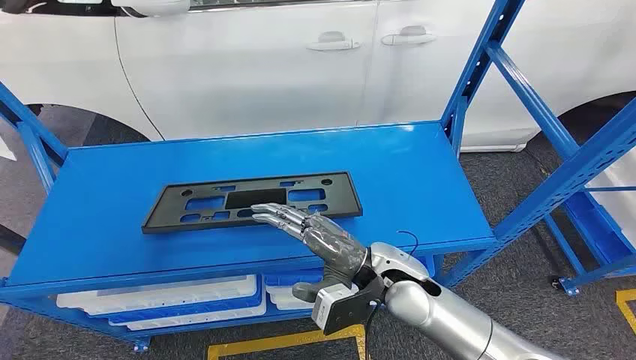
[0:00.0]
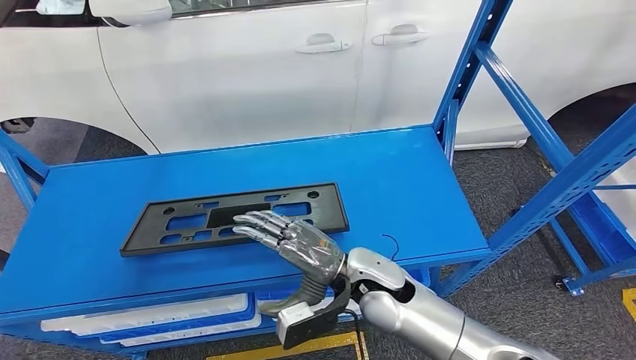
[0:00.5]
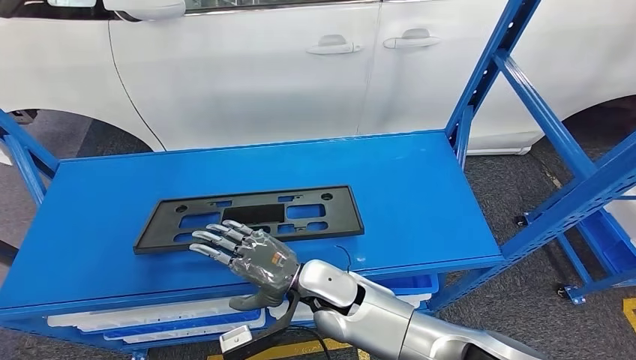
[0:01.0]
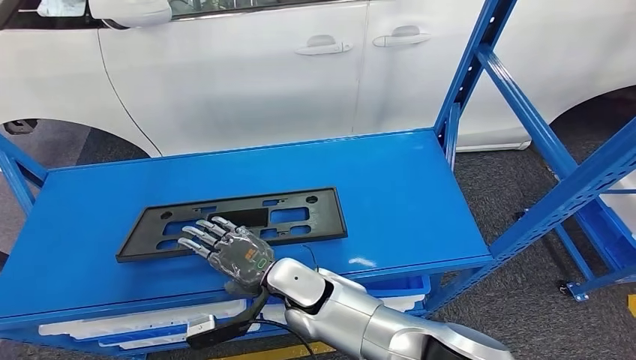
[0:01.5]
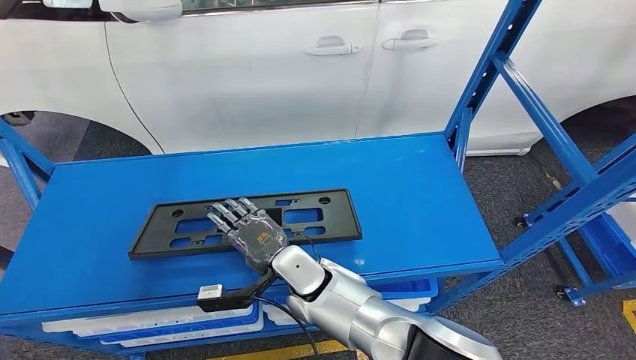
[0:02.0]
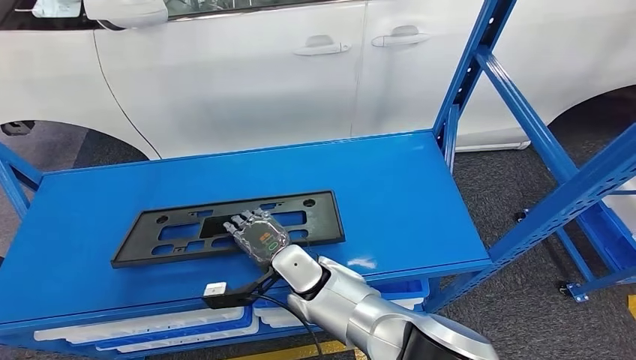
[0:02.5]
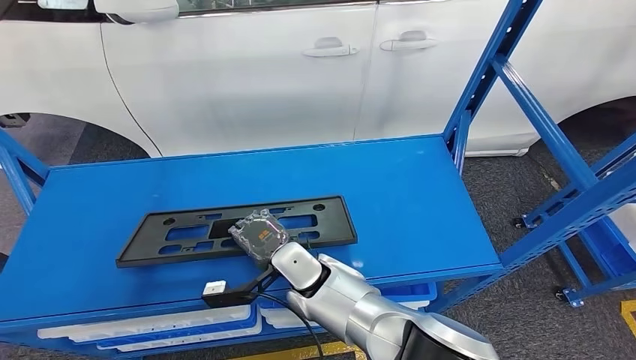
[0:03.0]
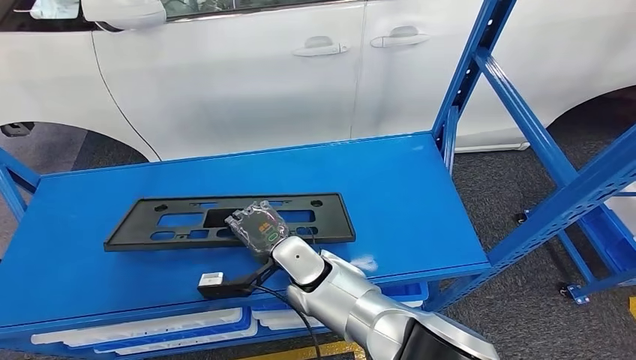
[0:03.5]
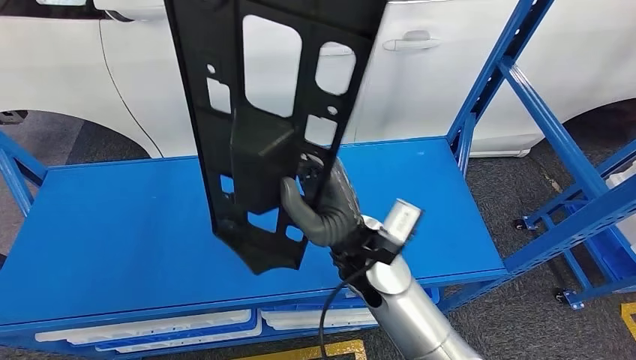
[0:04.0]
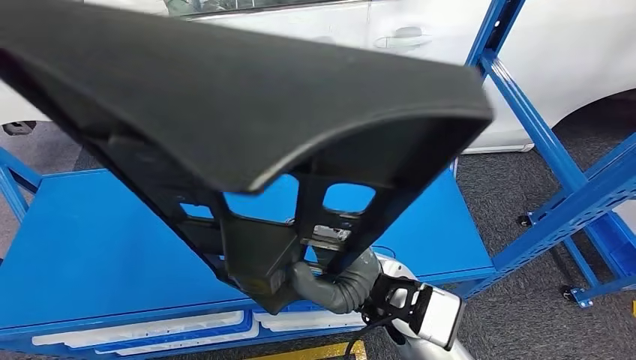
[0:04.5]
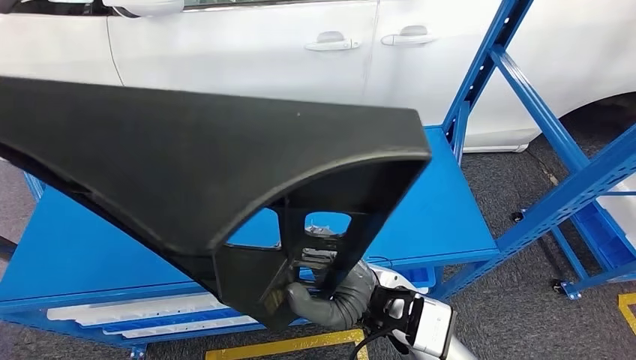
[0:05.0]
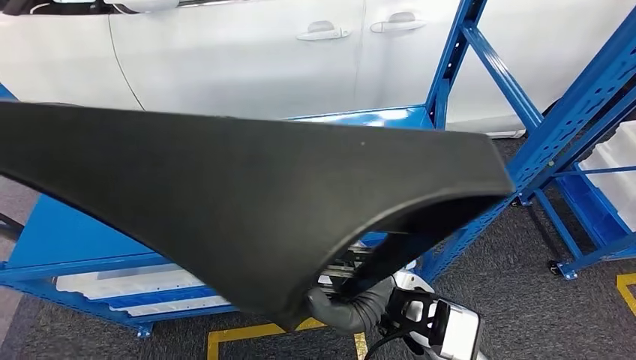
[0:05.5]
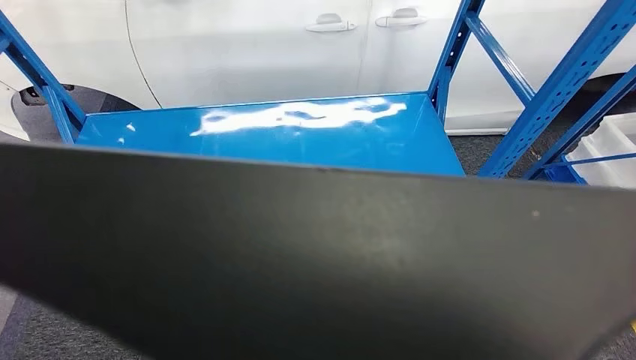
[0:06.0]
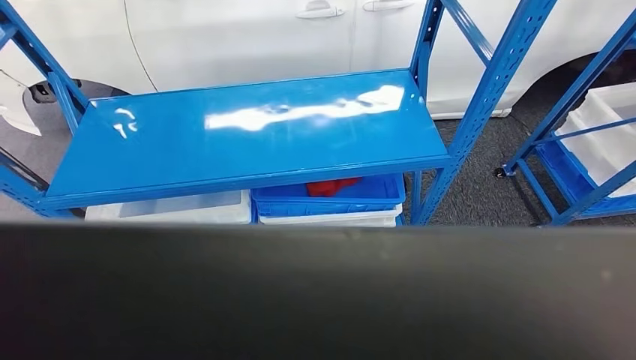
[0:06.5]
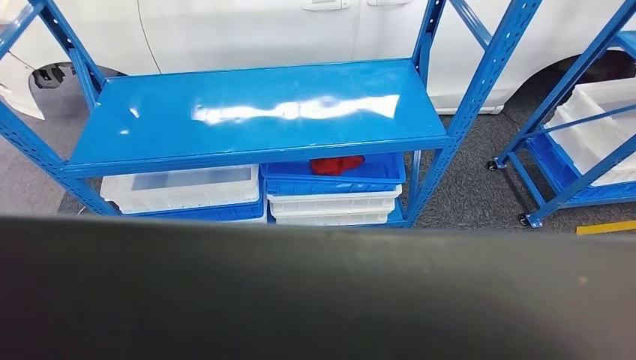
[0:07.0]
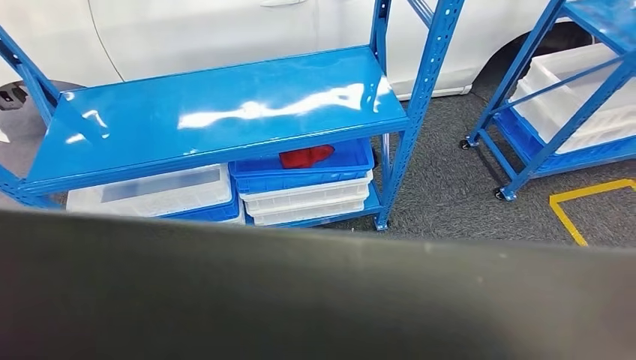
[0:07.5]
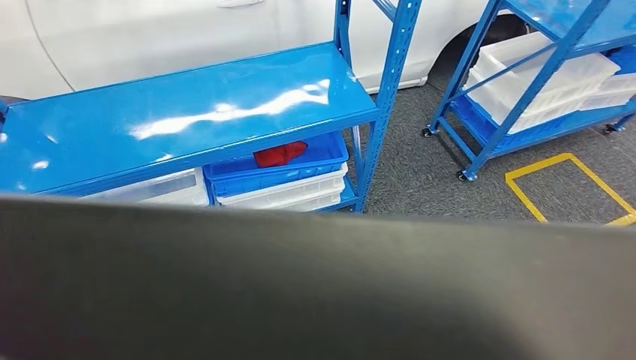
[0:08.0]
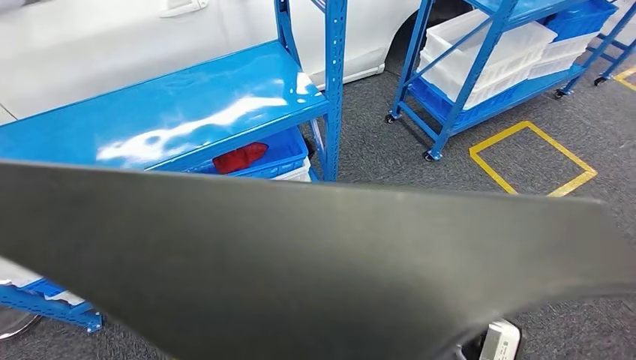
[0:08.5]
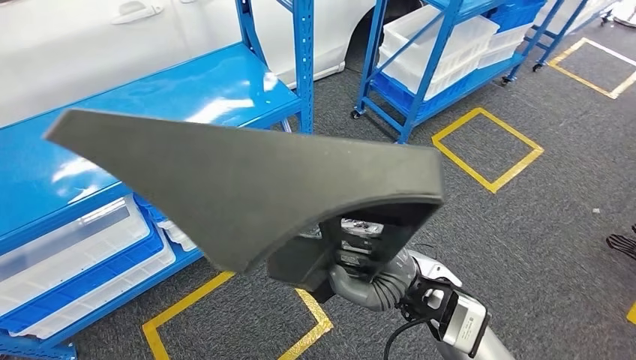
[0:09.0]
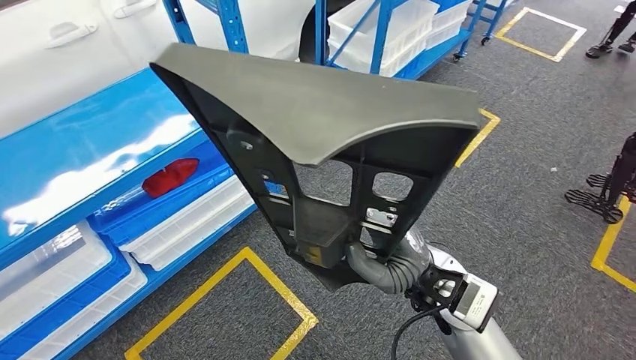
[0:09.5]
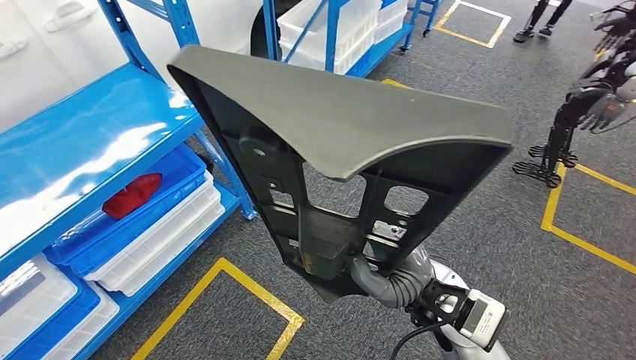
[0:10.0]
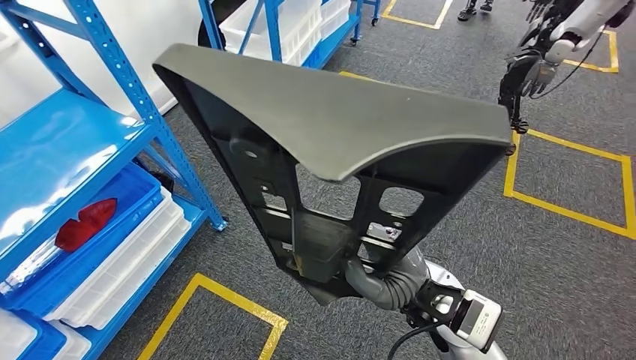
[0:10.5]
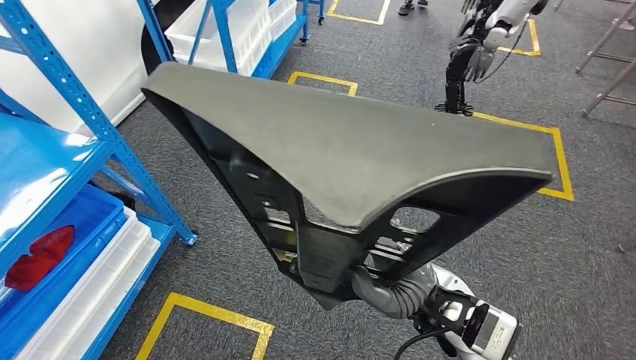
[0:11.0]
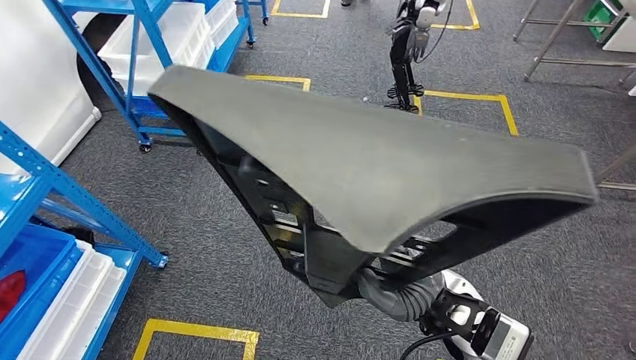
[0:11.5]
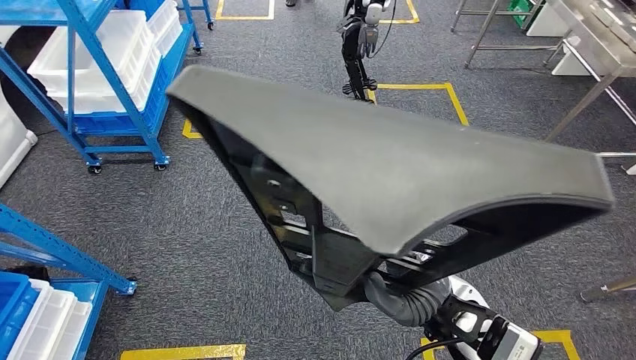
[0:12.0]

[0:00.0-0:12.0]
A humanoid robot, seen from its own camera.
Step, 0:00.0 to 0:04.5: Pick up the small component from the shelf.

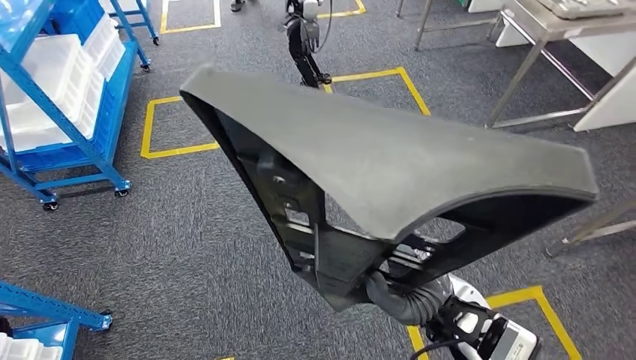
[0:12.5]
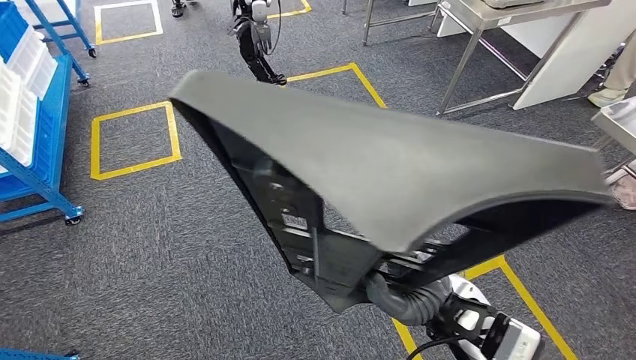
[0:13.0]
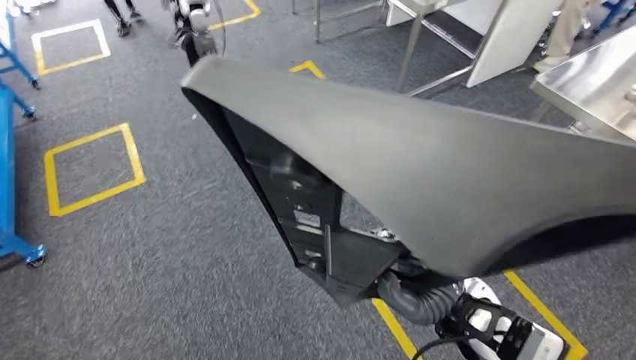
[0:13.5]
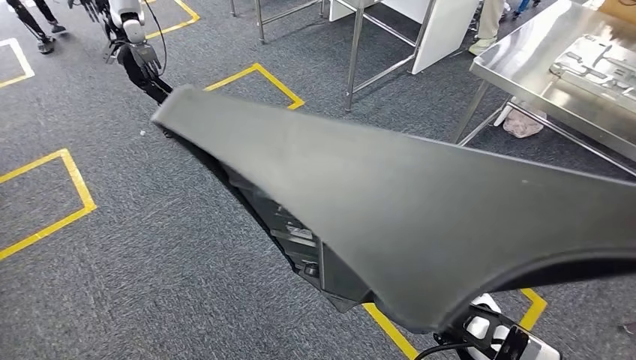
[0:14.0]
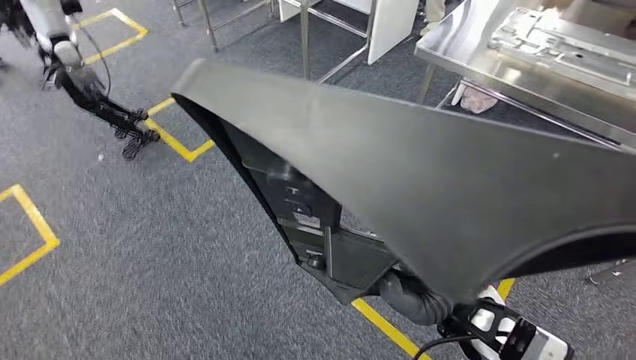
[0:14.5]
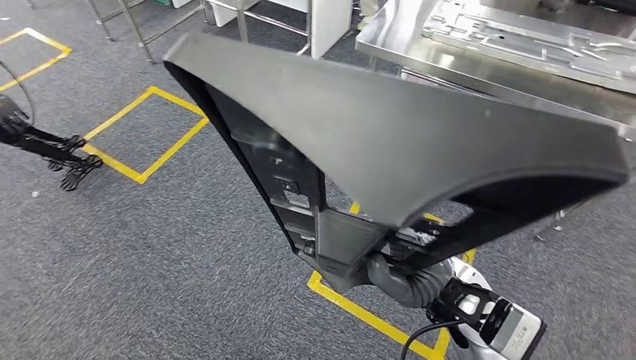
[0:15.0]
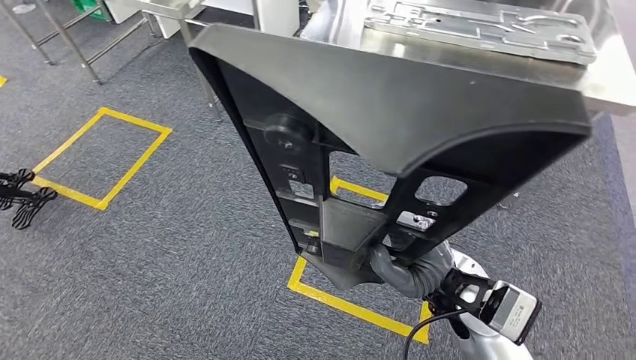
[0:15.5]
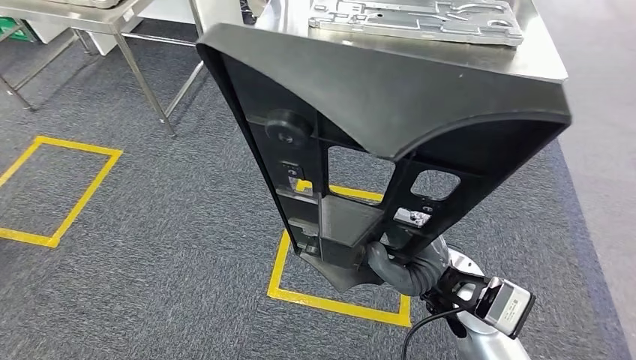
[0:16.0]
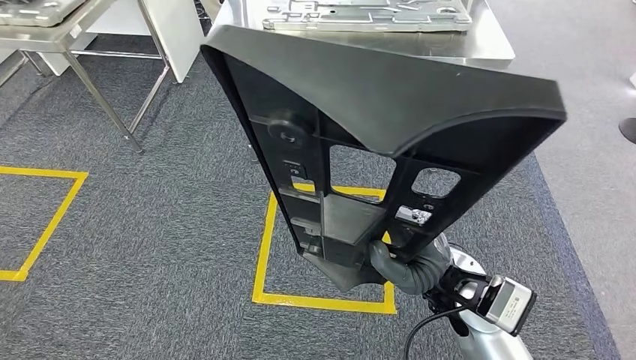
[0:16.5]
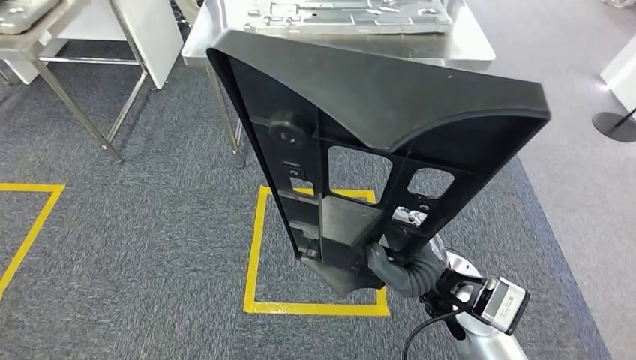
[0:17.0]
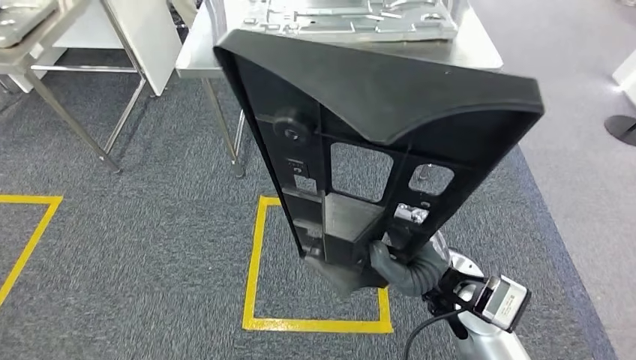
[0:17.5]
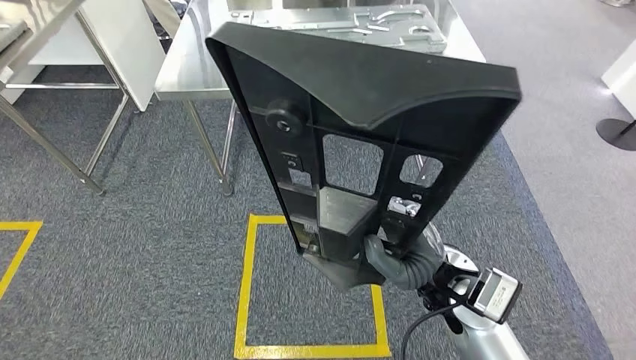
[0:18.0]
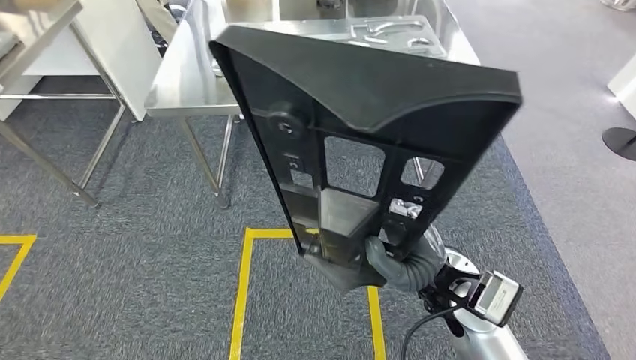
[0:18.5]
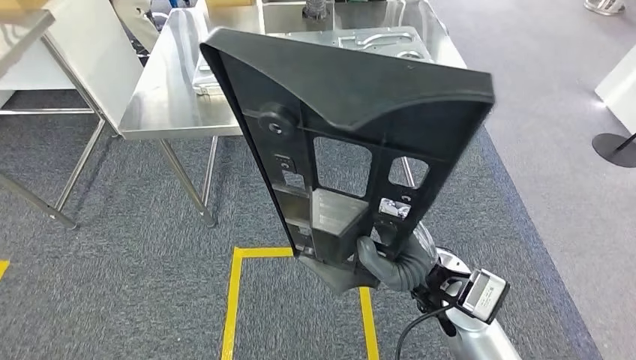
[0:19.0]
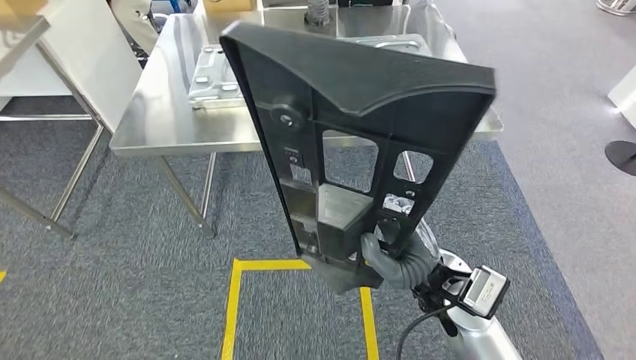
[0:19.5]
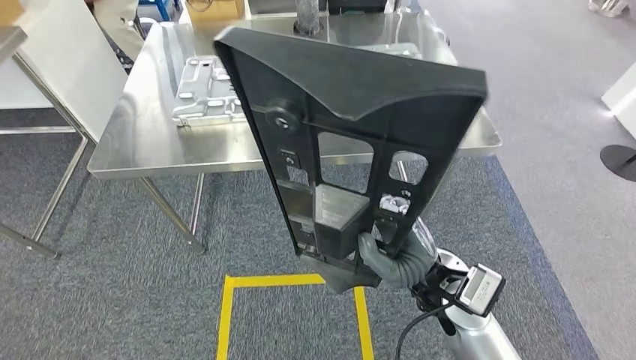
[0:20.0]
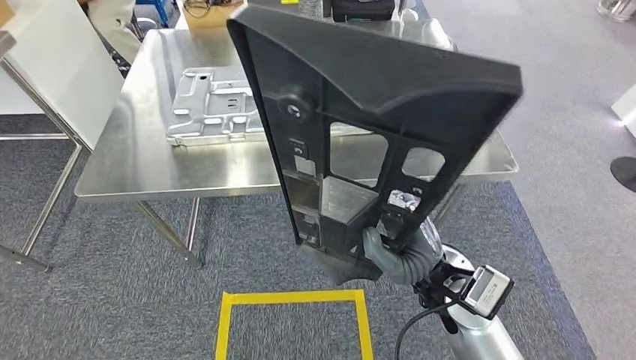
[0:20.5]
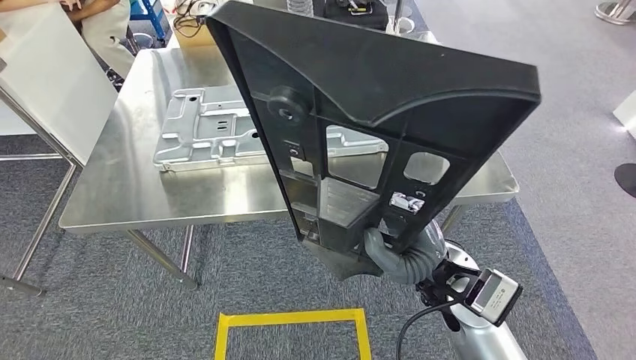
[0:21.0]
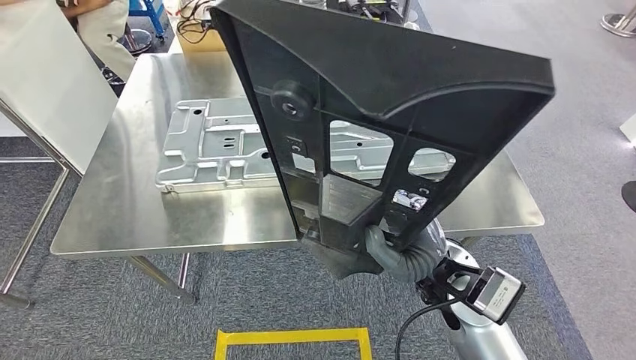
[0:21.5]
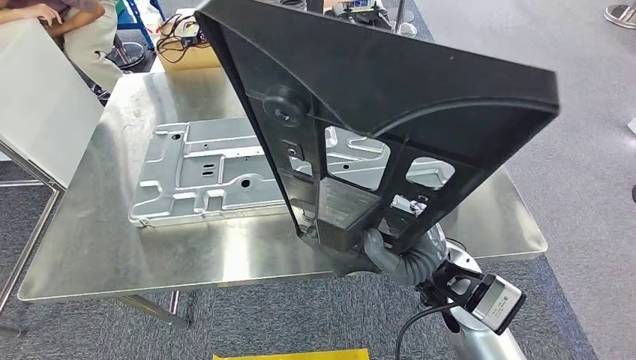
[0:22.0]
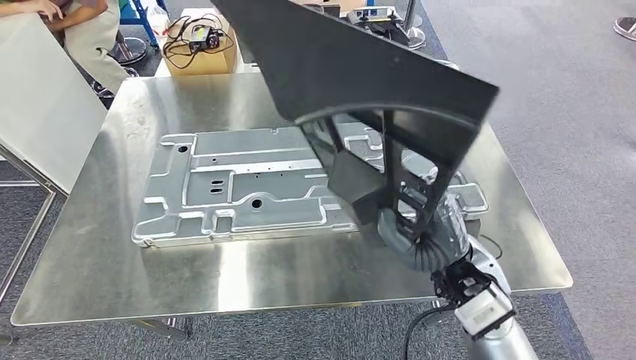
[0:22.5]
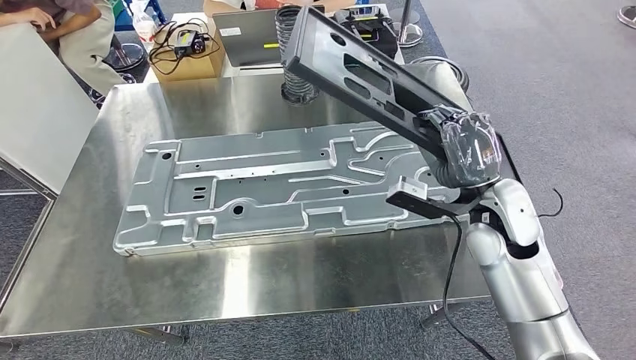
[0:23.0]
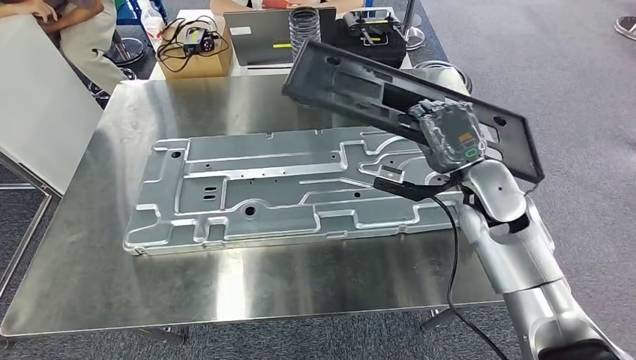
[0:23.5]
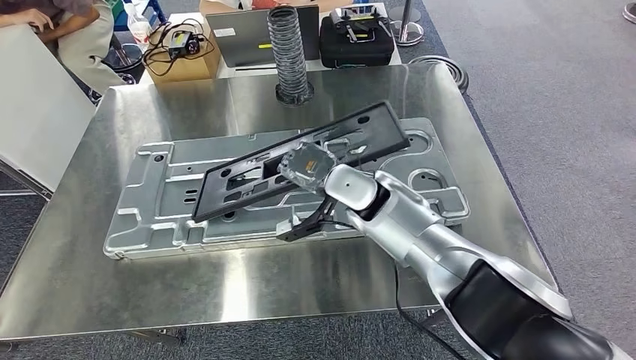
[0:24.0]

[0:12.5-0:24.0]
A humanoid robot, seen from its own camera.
Step, 0:12.5 to 0:21.0: Move the small component to the workbench.
